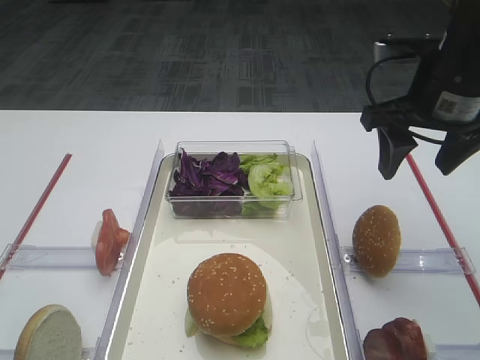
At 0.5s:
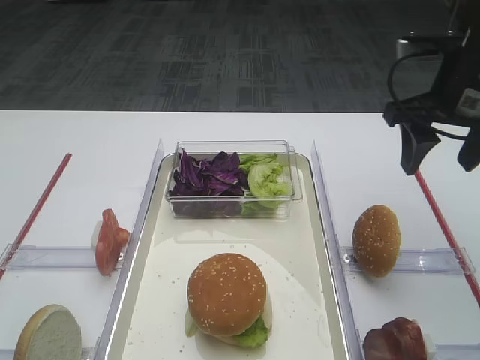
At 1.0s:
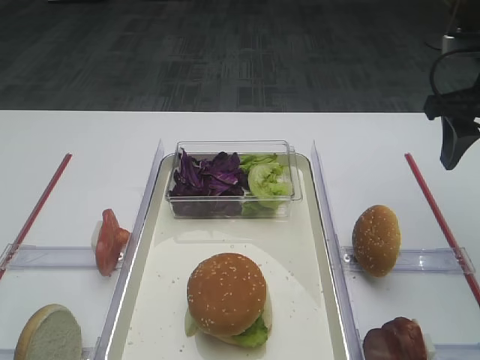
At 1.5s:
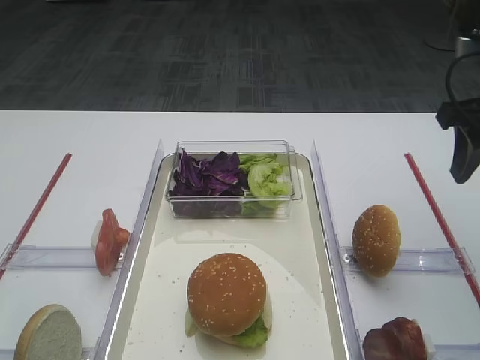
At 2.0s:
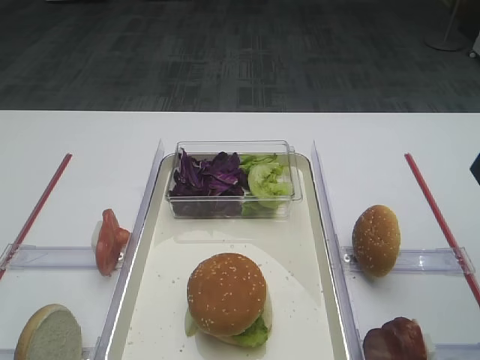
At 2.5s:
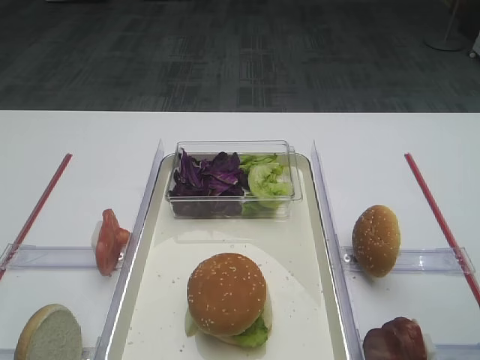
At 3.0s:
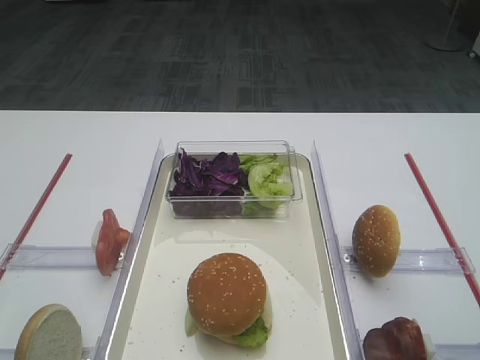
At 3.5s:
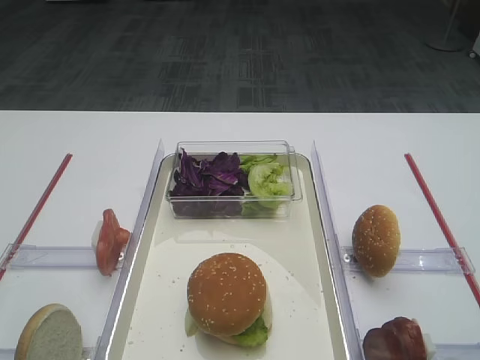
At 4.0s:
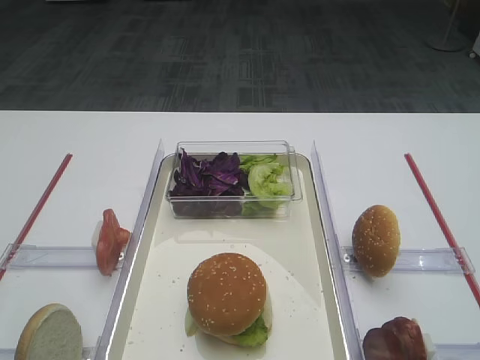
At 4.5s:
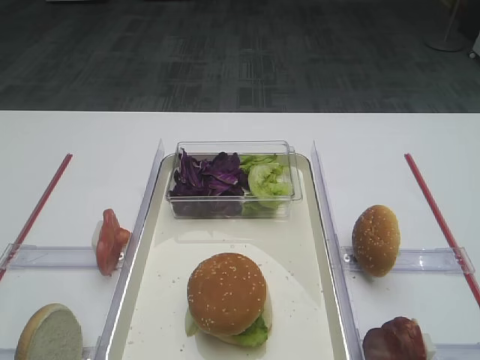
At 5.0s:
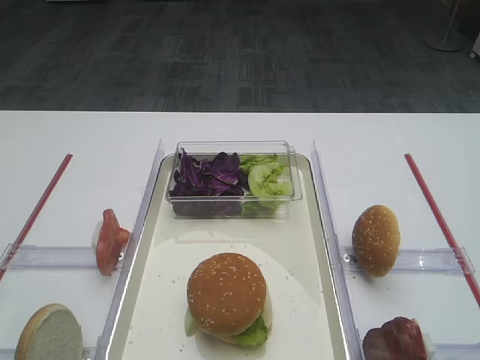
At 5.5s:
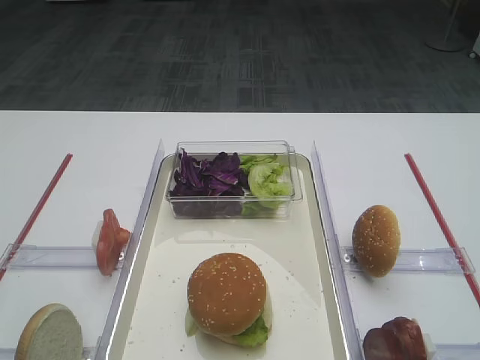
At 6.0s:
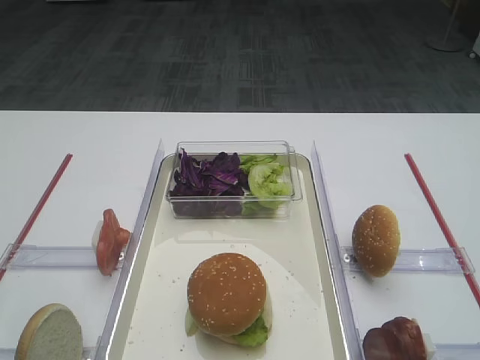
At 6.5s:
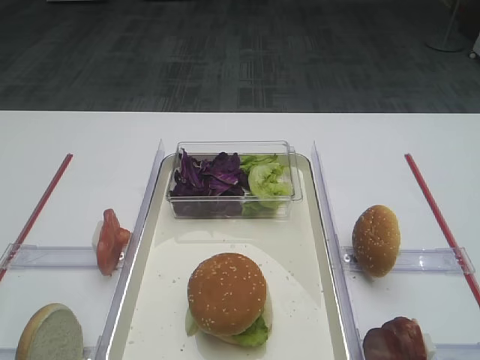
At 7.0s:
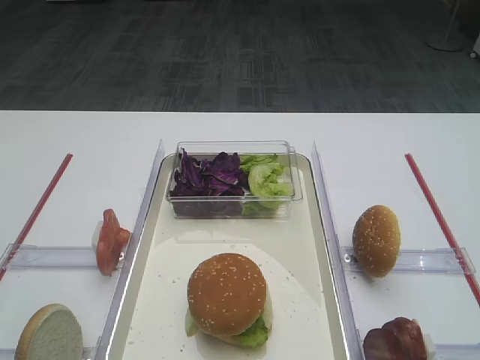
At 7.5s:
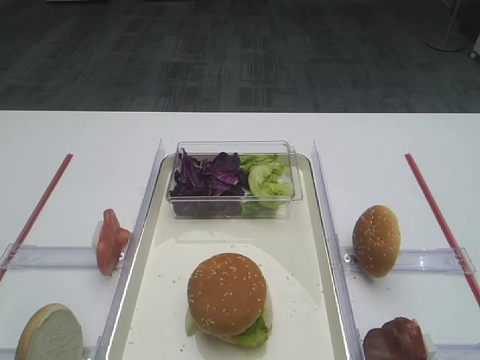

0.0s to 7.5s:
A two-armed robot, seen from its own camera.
0.0s to 2.0s: The right gripper shifts about 10 cm backward and to the right.
2.0s to 4.0s: The right gripper travels backward by approximately 20 cm.
5.5s to 7.5s: The two grippers keep their place.

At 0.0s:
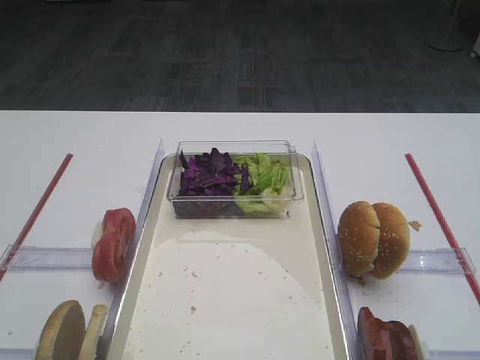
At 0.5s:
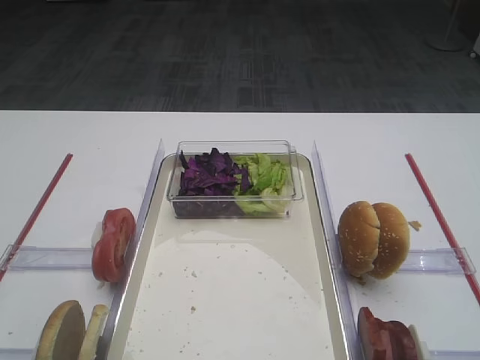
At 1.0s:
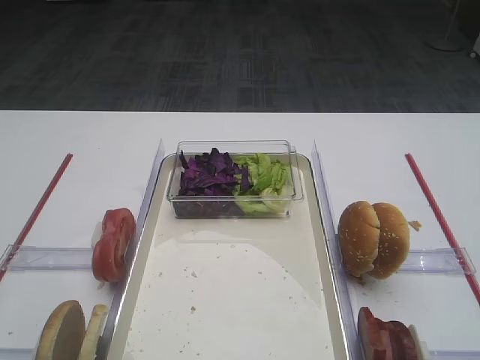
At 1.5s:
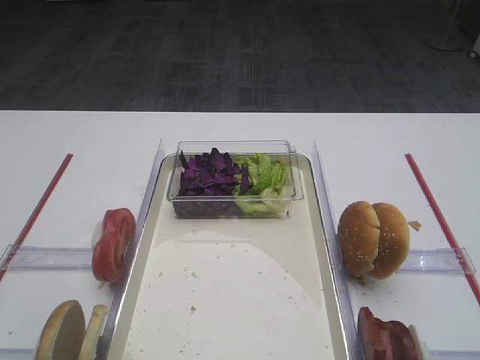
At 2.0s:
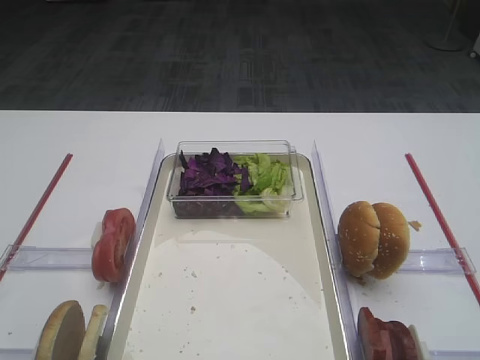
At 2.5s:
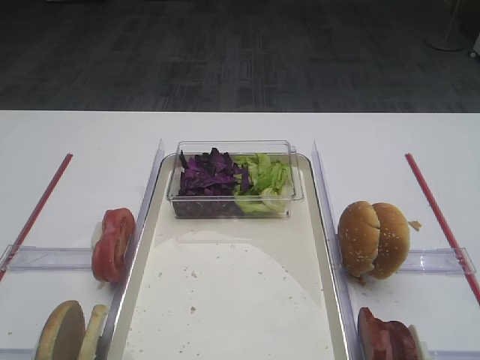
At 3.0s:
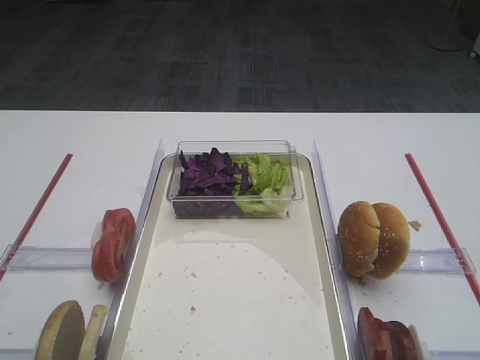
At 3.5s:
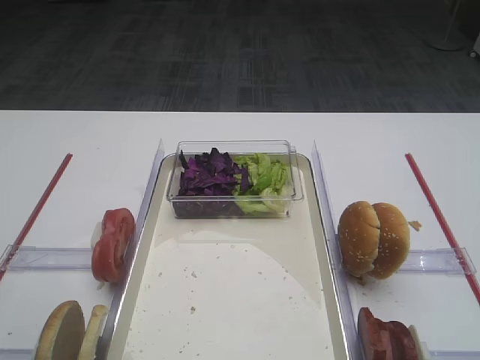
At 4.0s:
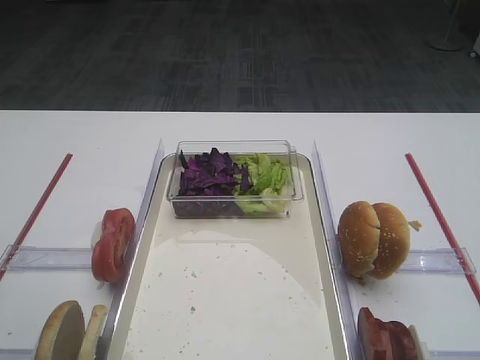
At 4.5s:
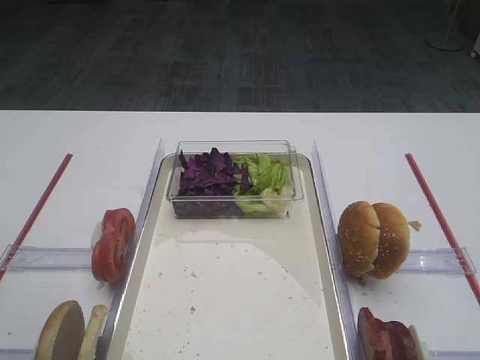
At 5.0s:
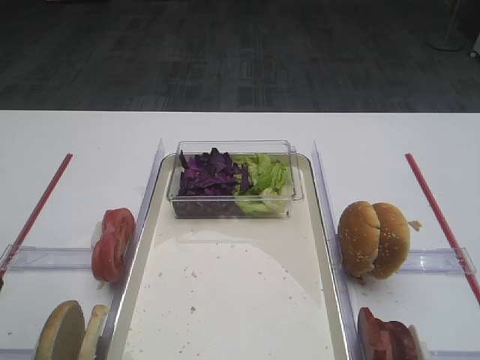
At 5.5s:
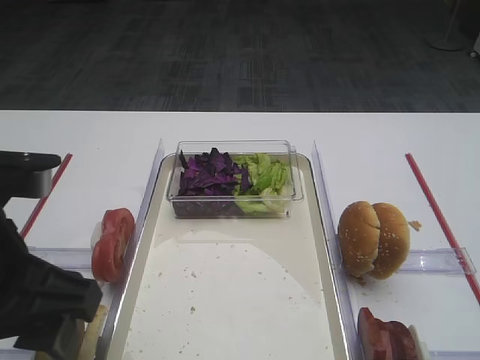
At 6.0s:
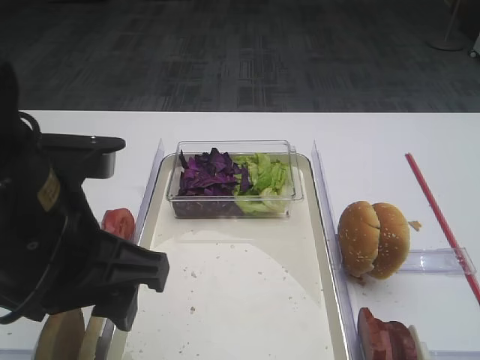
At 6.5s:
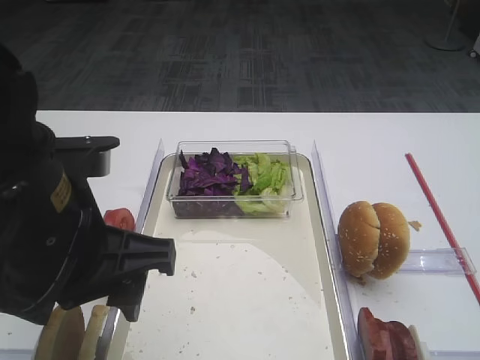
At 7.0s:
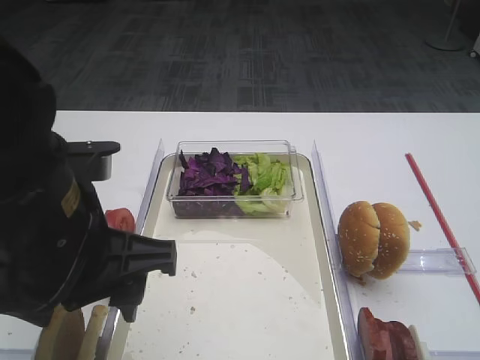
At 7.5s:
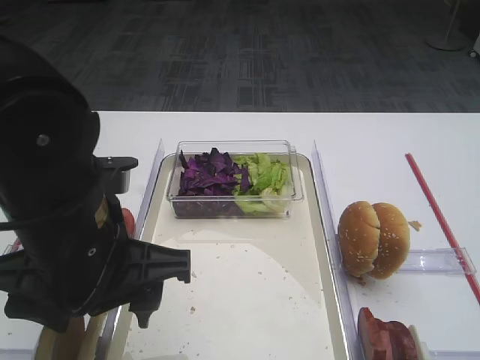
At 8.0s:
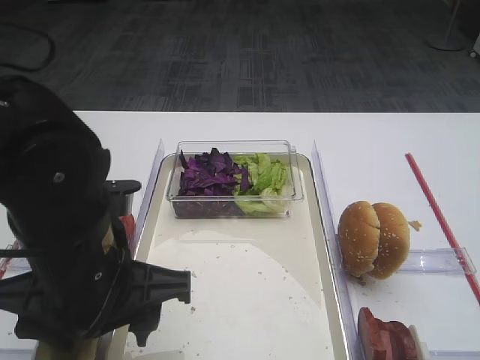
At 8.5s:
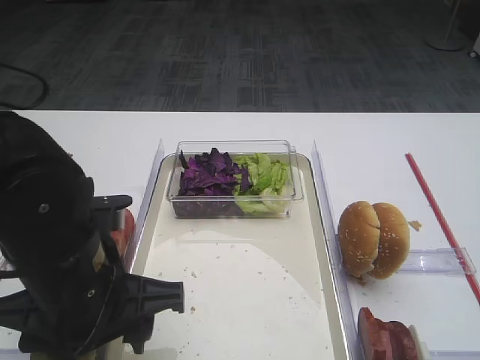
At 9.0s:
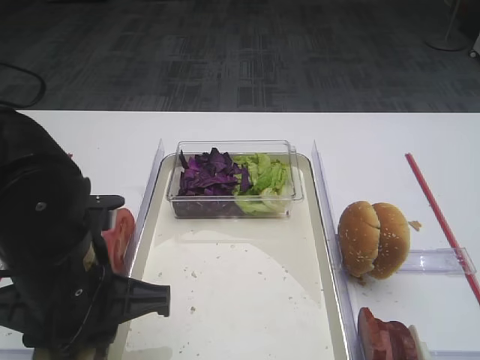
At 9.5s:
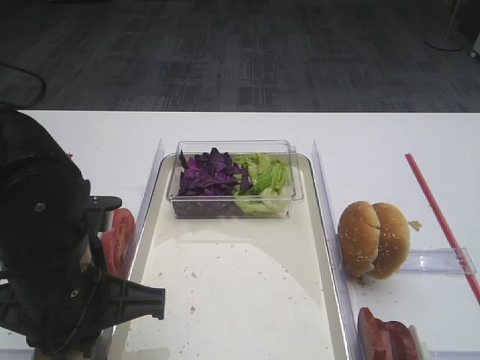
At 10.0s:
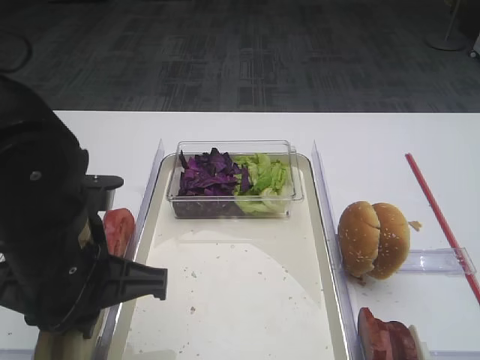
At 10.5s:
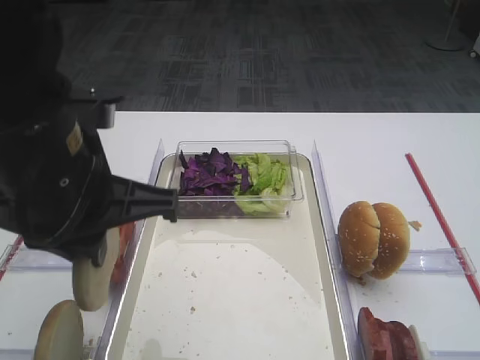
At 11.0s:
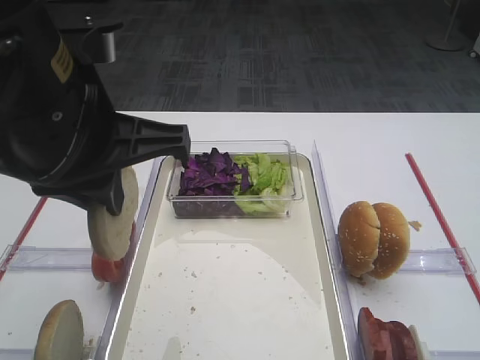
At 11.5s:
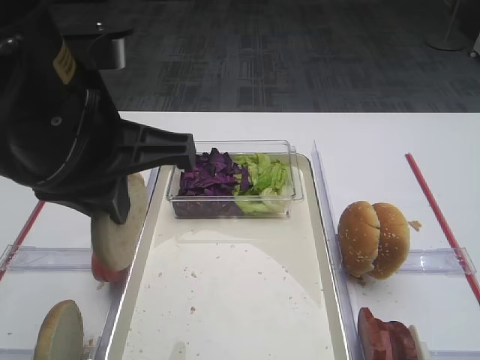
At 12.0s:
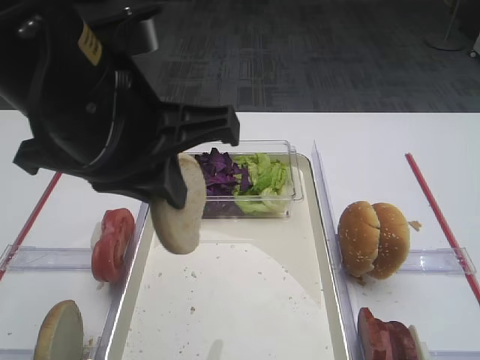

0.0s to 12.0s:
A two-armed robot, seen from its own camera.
Step, 0.0s to 10.0s: Pick up the bread slice with the left gripper.
4.0s to 6.0s: The left gripper travels to the right by some 15 cm.
6.0s to 8.0s: The left gripper shifts about 5 cm downward.
8.0s to 10.0s: The left gripper closes its fingers.
10.0s to 12.0s: The left gripper shifts roughly 15 cm upward.

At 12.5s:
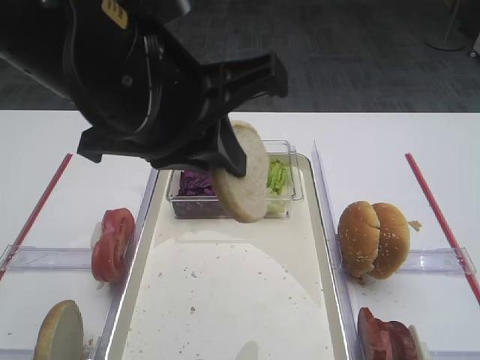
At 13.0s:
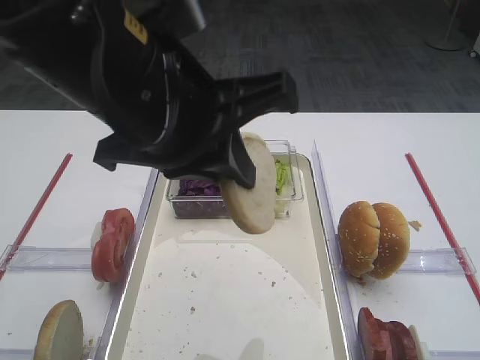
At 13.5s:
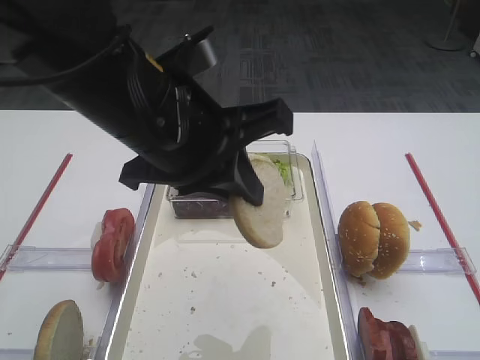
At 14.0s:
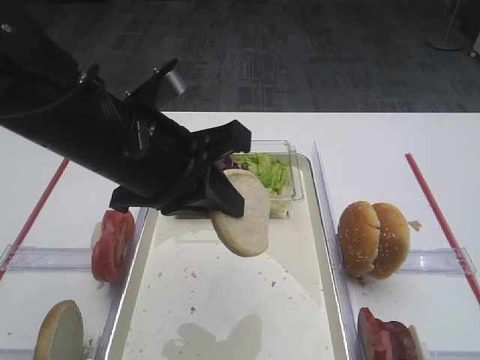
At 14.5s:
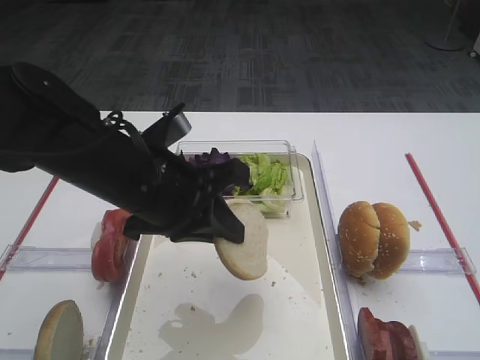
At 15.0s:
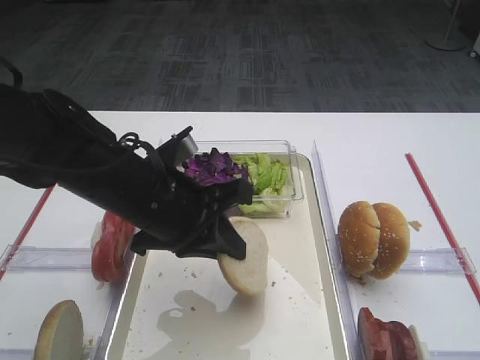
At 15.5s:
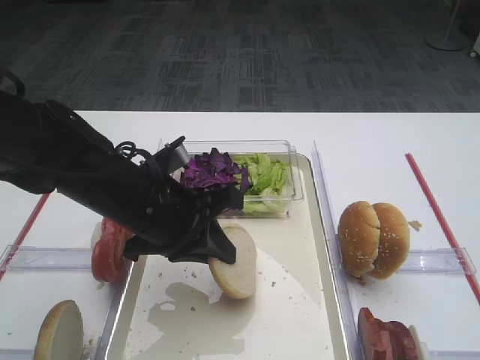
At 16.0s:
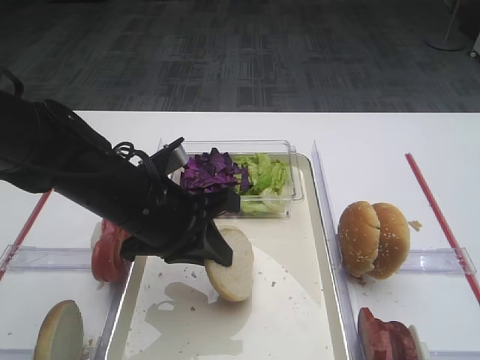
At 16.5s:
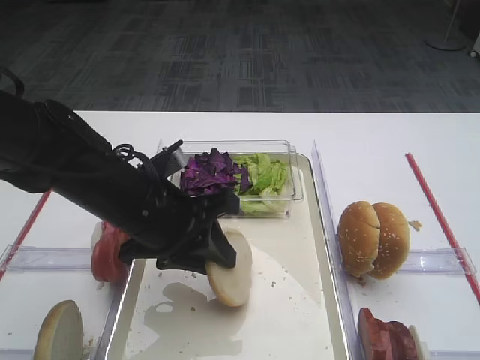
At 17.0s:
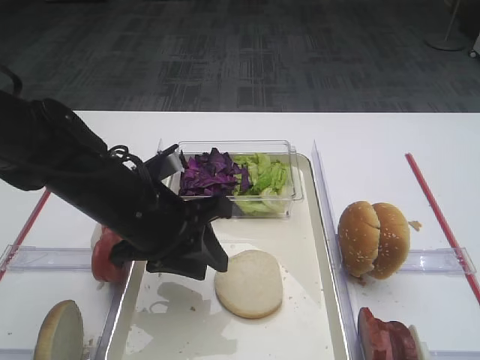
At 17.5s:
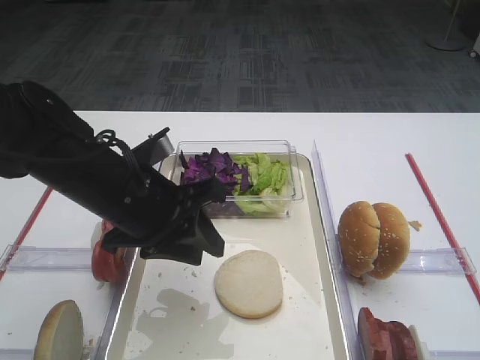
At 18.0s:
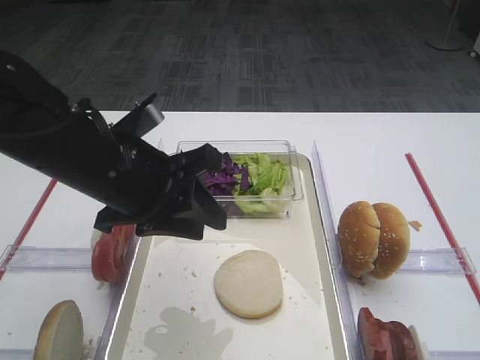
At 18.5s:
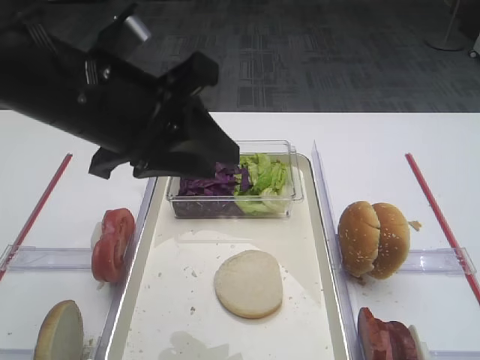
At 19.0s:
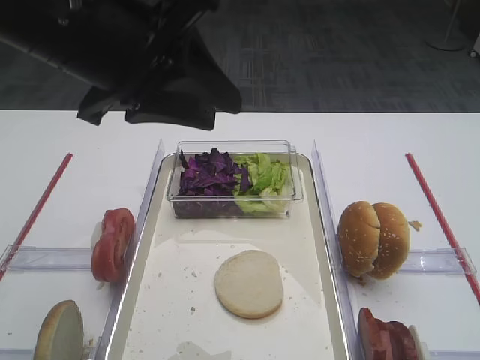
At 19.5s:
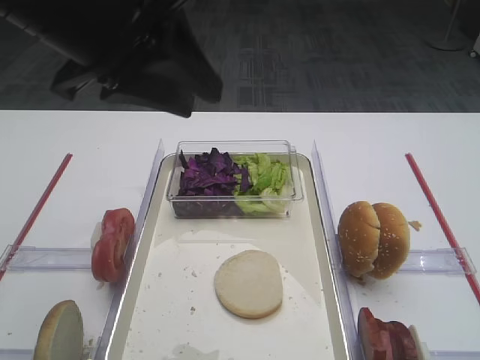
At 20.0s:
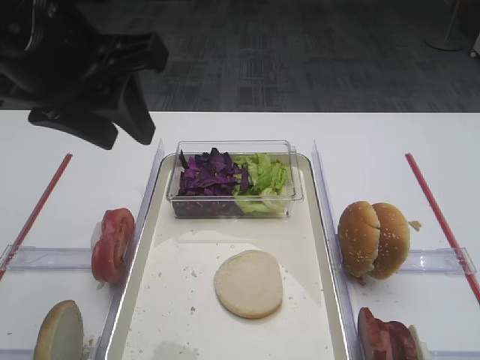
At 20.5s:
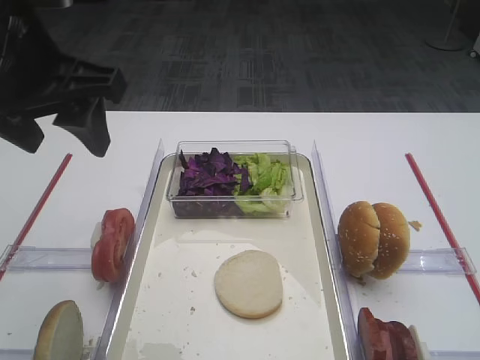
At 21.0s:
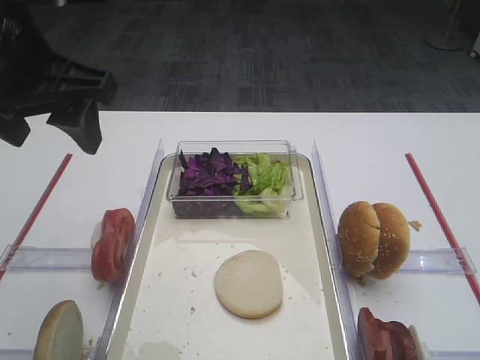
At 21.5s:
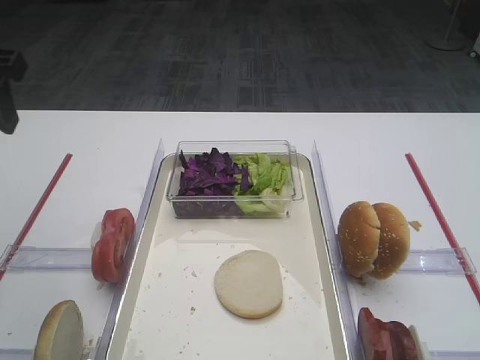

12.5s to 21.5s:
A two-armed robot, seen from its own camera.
Step, 12.5s to 17.0s: Place the bread slice on the tray with the left gripper.
12.5s to 14.5s: The left gripper heads downward, covering some 15 cm.
14.5s to 17.0s: The left gripper ends up approximately 5 cm from where it was, and opens its fingers.
17.0s to 19.5s: The left gripper is displaced upward by roughly 20 cm.
19.5s to 21.5s: The left gripper moves to the left, some 15 cm, and opens up.
